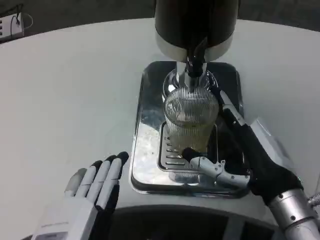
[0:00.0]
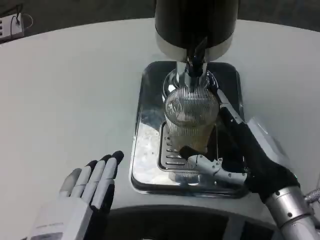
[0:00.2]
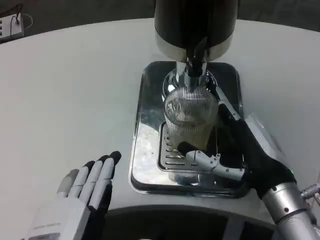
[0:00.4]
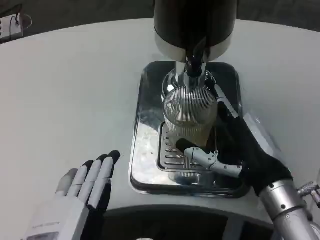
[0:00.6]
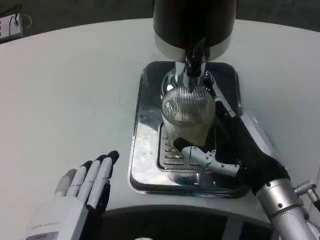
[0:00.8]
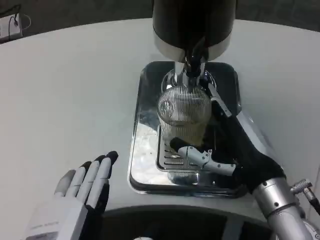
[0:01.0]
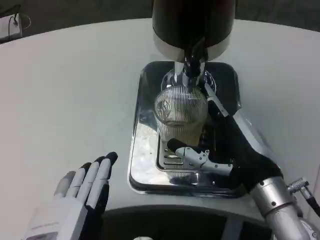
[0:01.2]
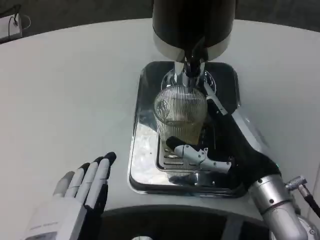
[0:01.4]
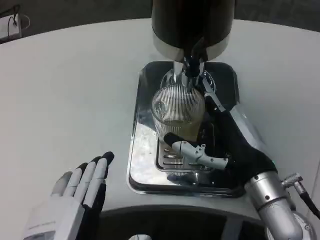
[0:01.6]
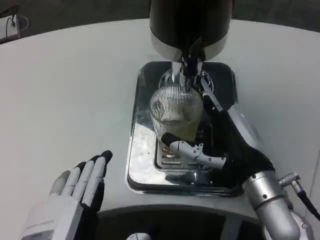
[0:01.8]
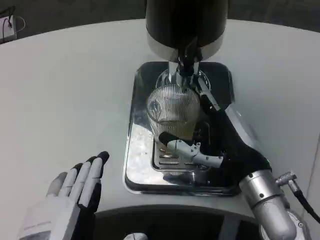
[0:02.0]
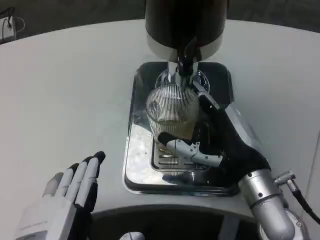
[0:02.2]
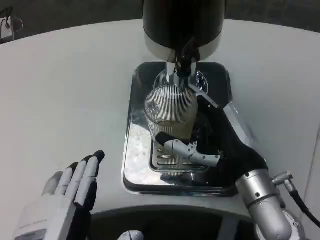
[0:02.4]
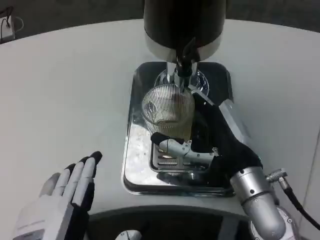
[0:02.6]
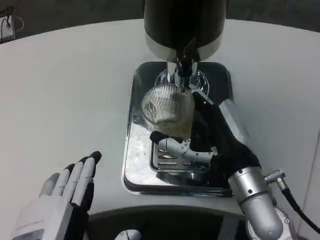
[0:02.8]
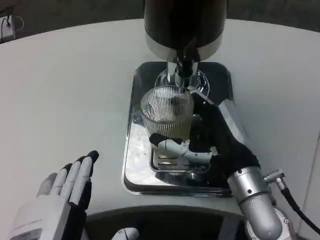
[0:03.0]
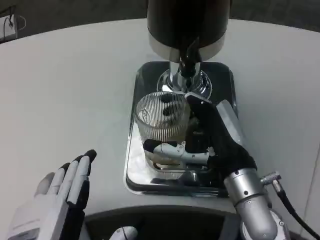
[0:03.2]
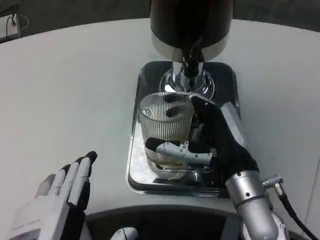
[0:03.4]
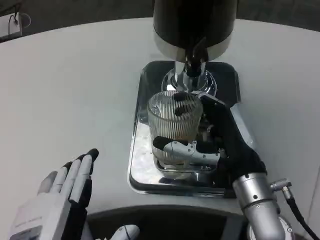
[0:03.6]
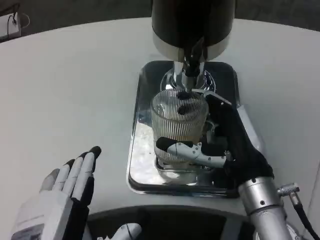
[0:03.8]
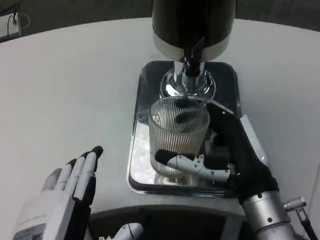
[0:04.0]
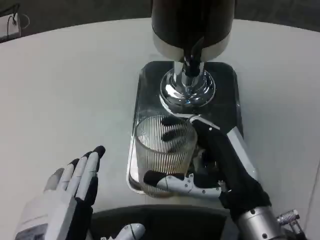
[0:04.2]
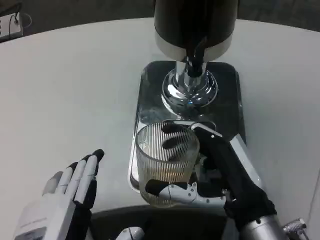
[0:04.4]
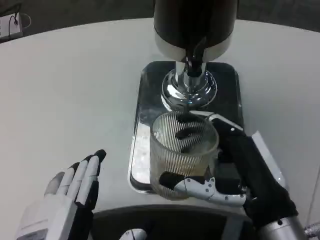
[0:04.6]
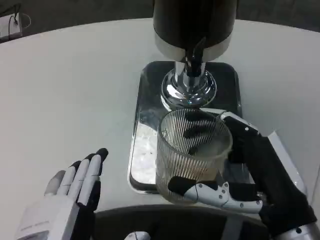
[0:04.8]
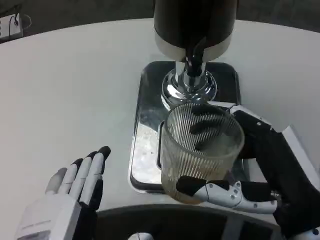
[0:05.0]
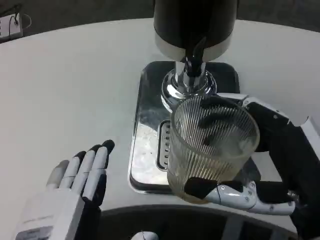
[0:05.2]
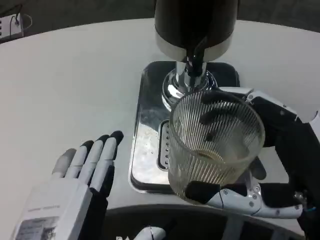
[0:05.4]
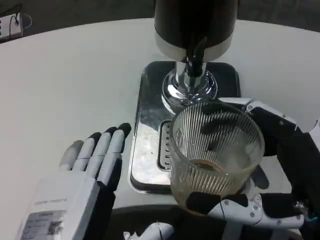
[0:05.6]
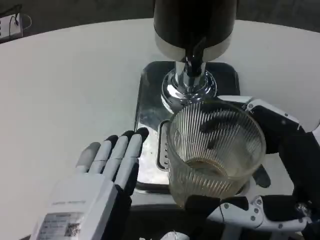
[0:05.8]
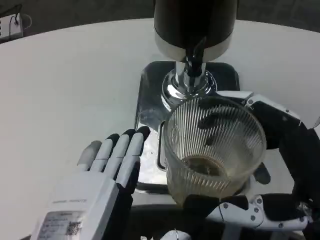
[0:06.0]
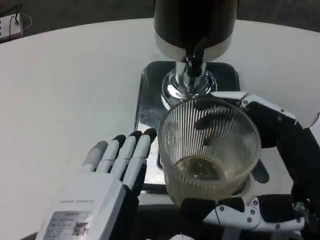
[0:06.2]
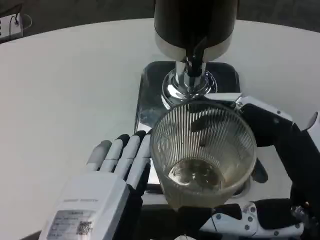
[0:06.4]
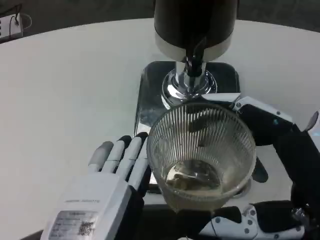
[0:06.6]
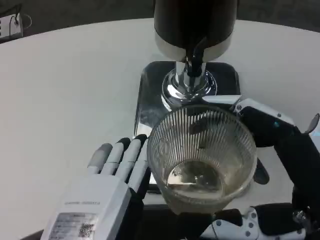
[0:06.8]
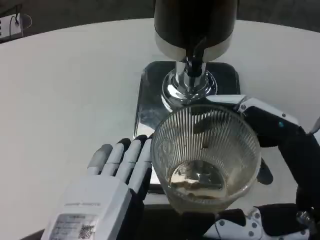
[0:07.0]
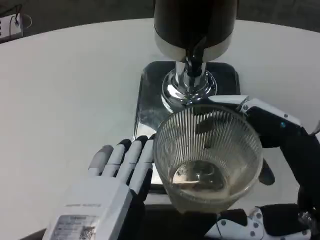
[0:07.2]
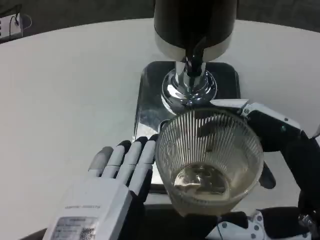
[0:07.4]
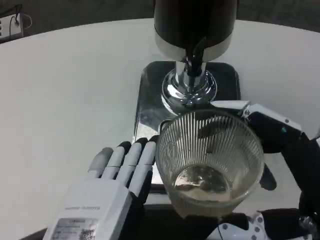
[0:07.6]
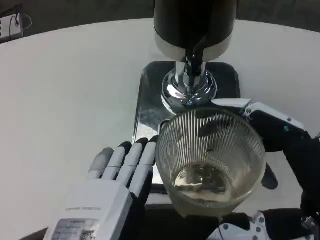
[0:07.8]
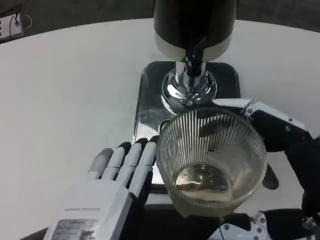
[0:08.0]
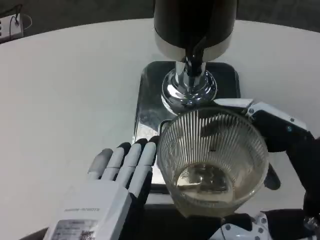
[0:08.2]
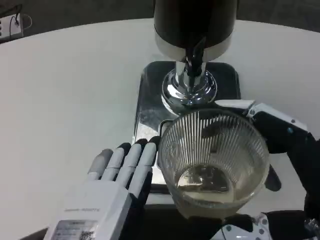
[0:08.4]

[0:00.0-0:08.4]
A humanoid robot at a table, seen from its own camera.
Task of the whole recording: Grasp the cup under the faucet to collect the drink, then remove the cup.
0:00.0 to 0:01.4: The hands make only small movements.
0:02.8 to 0:04.2: The right hand goes about 5 cm backward.
0:04.2 to 0:05.6: The right hand goes approximately 10 cm backward and to the right.
0:07.0 to 0:08.4: Both hands stay about where they are.

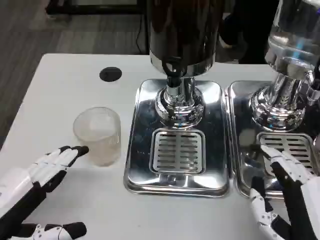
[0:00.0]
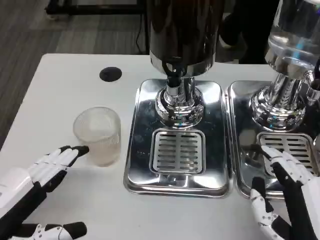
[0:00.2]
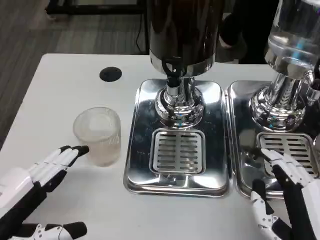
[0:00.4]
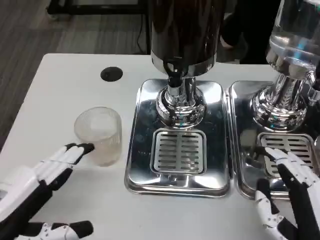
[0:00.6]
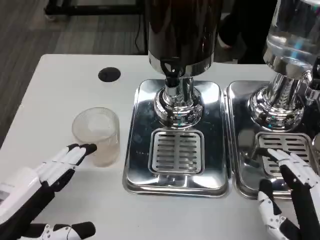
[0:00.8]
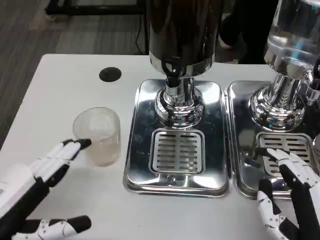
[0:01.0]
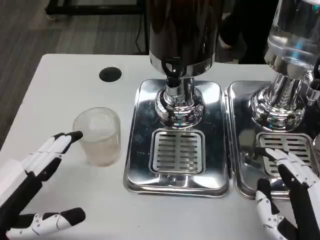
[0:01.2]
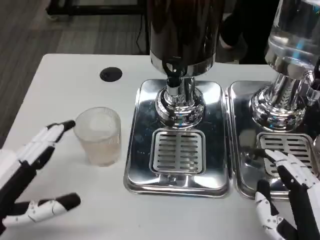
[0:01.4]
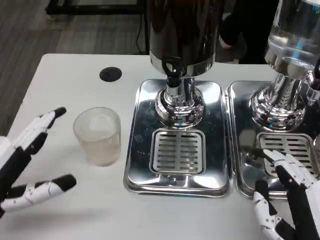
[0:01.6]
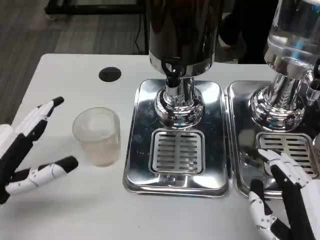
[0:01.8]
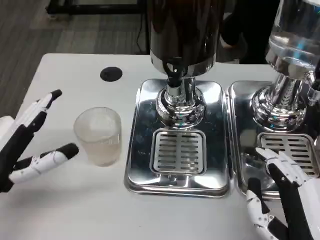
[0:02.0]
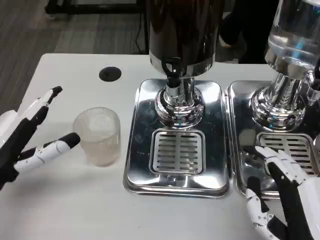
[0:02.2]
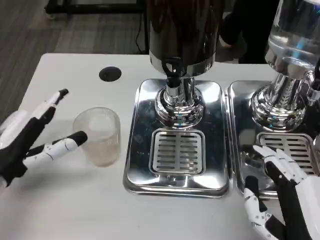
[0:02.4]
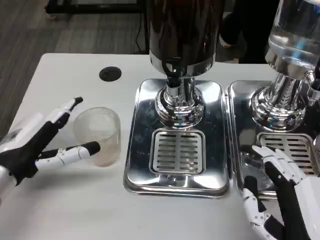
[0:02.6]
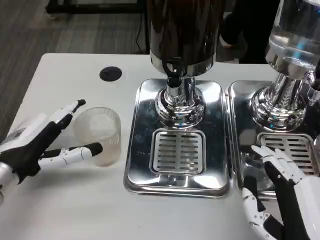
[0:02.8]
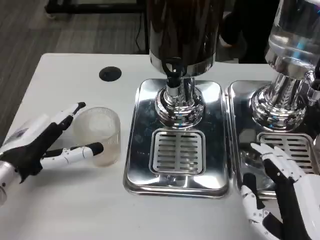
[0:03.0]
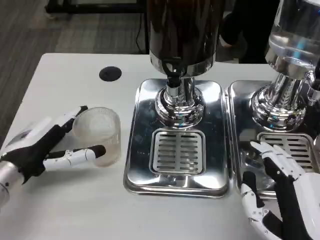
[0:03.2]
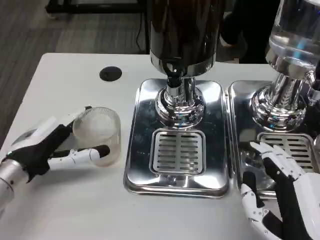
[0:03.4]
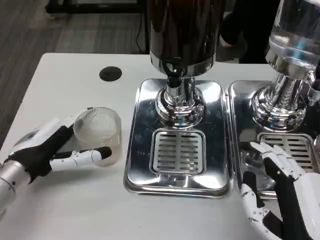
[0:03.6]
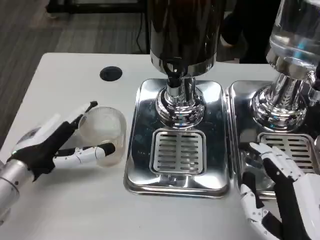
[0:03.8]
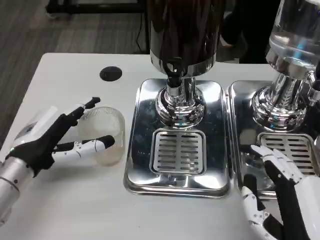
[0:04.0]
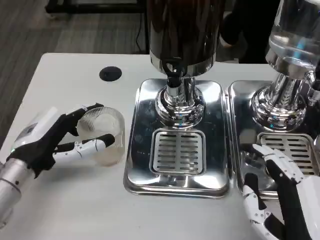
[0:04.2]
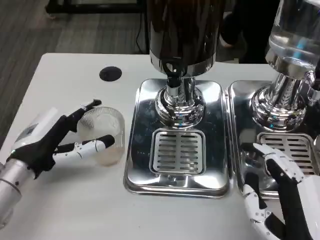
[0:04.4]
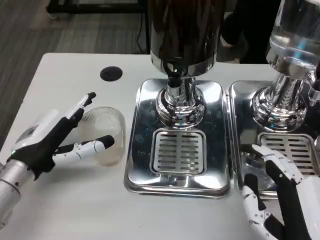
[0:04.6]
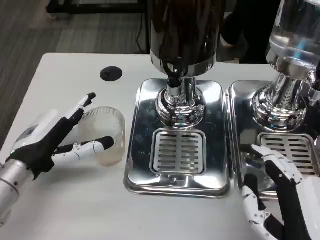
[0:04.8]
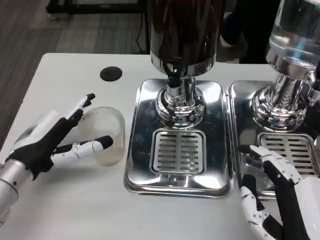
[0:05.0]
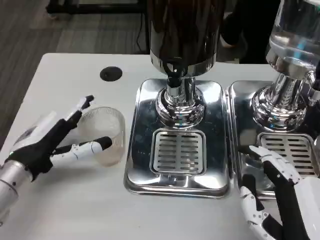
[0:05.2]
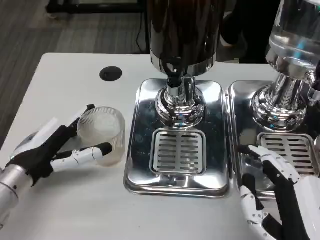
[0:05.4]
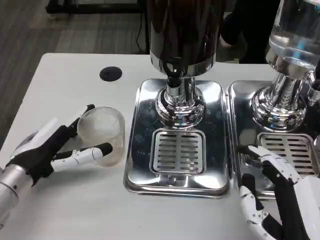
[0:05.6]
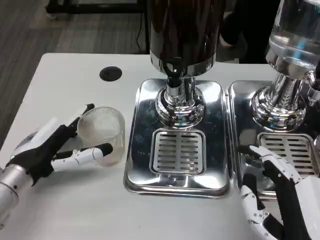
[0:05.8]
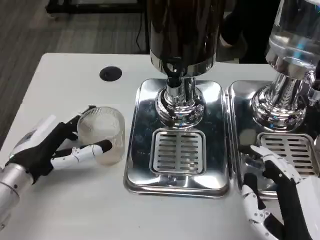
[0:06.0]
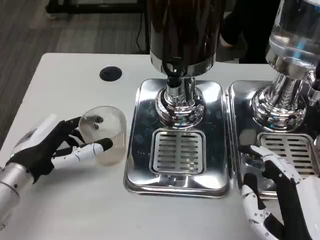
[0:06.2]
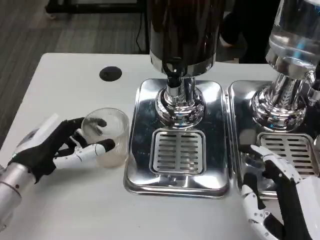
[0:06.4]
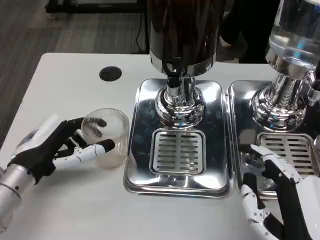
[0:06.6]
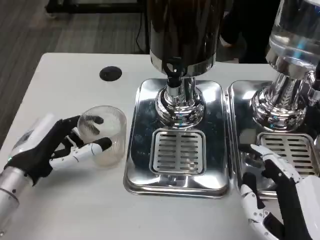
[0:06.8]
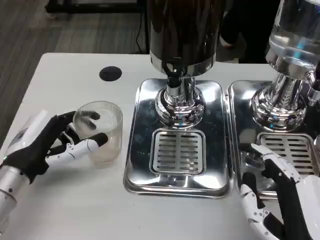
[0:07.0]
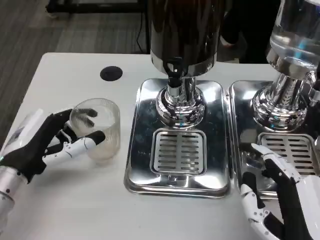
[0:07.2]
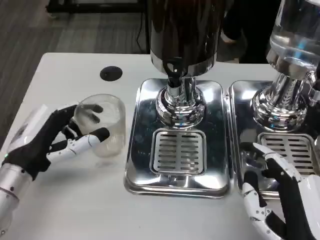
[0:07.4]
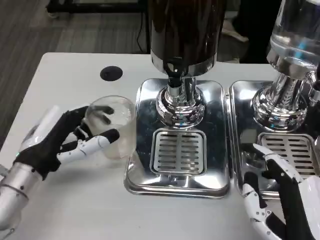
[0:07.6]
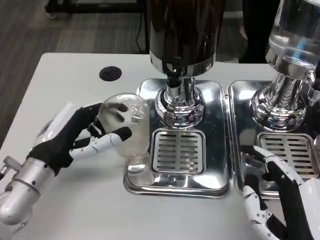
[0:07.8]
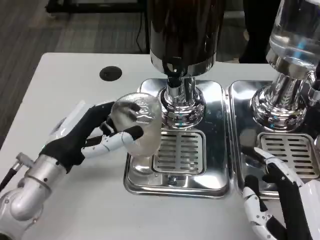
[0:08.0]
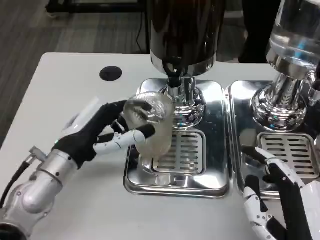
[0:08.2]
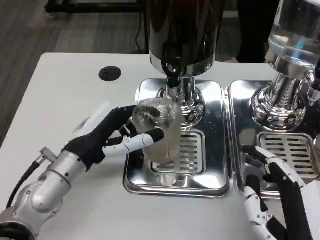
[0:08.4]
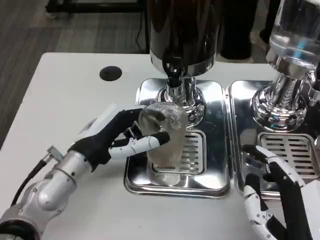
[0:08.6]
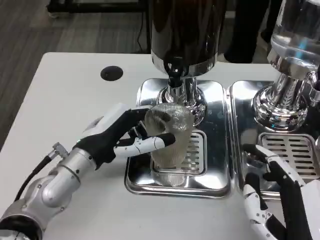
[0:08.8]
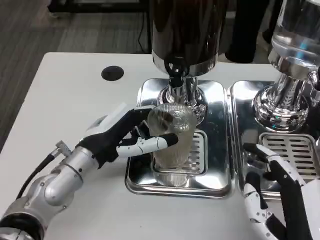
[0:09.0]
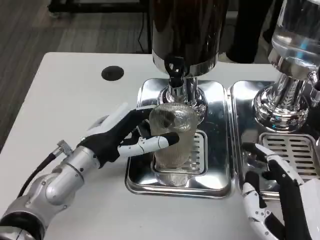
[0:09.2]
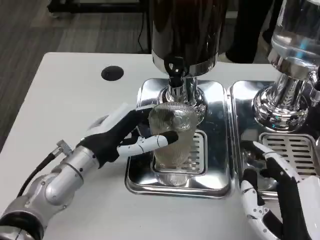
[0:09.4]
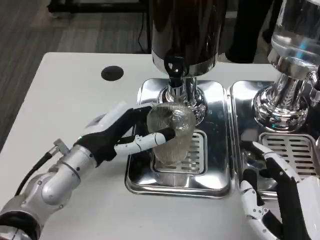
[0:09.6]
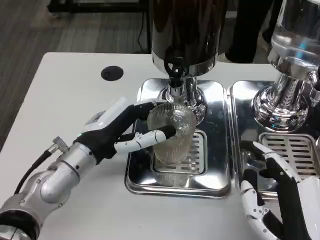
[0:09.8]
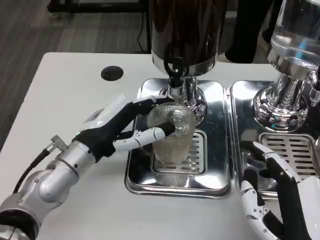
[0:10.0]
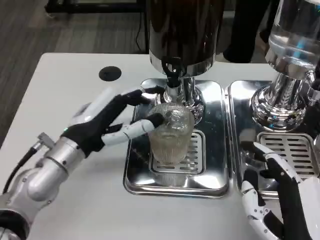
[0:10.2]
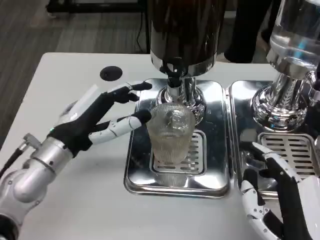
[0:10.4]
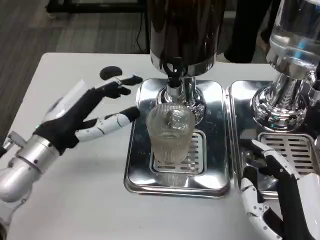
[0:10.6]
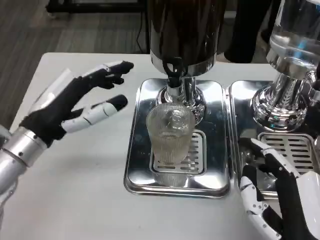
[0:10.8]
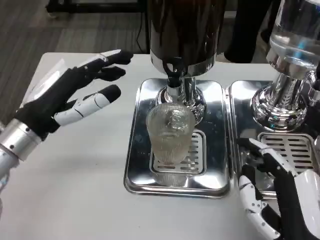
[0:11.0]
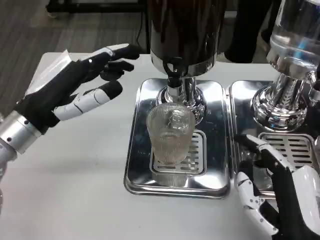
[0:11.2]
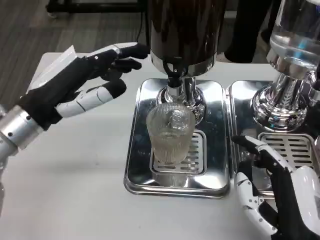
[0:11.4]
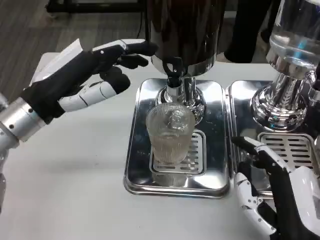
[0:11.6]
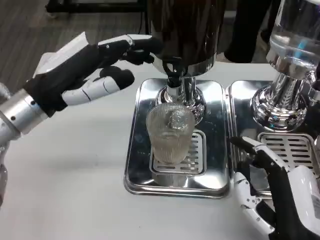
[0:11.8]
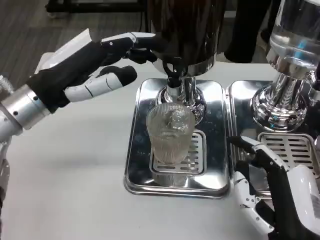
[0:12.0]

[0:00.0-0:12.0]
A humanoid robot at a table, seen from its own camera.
Task of the whole recording: Grasp the cup under the faucet to collect the drink, then remove the cup.
0:00.0 to 0:01.6: There are only small adjustments of the hands.
0:01.6 to 0:03.0: The left hand is displaced forward by roughly 10 cm.
0:03.0 to 0:07.6: The hands move only a little.
0:07.6 to 0:09.0: The left hand shifts some 5 cm to the right.
0:10.4 to 0:12.0: The left hand shifts roughly 10 cm upward.

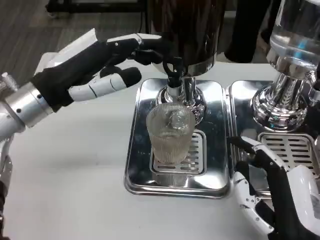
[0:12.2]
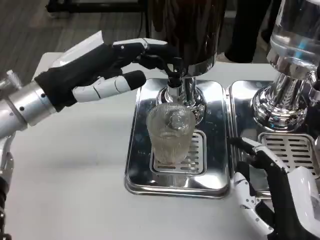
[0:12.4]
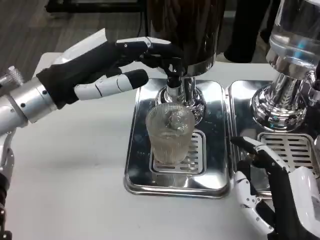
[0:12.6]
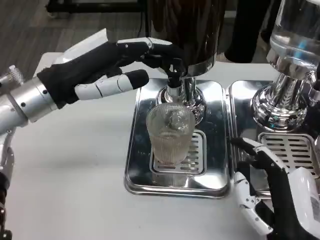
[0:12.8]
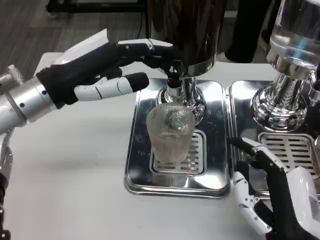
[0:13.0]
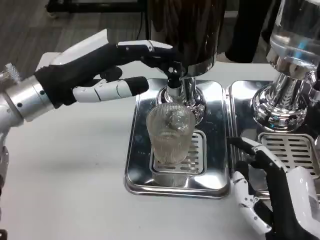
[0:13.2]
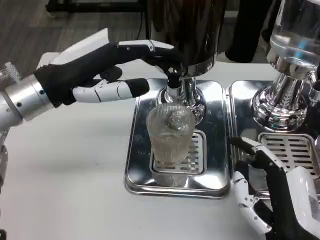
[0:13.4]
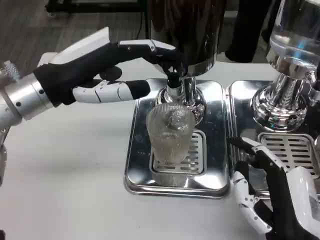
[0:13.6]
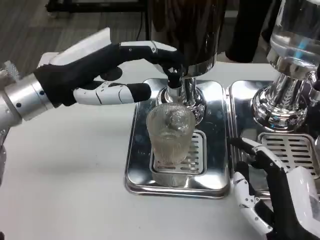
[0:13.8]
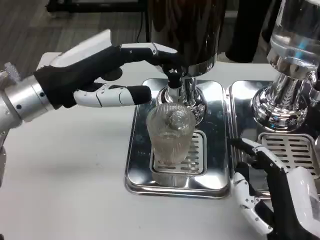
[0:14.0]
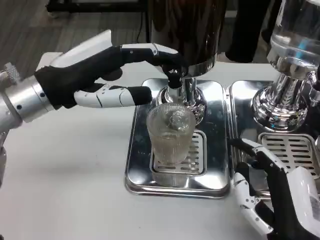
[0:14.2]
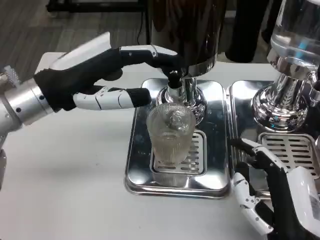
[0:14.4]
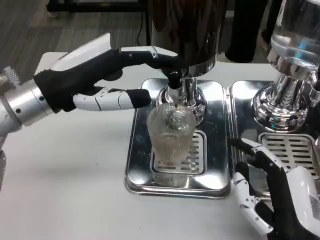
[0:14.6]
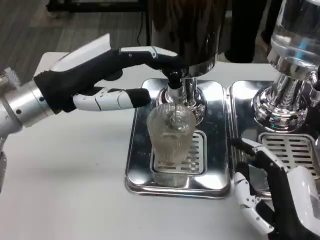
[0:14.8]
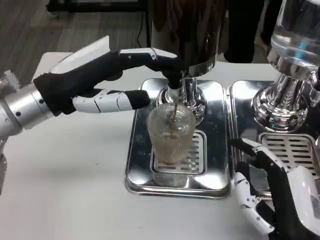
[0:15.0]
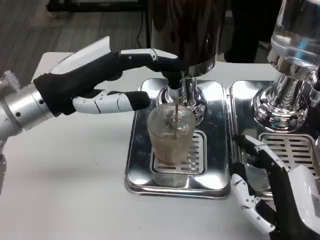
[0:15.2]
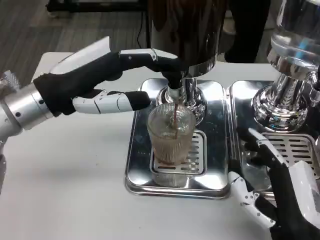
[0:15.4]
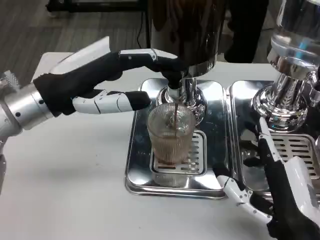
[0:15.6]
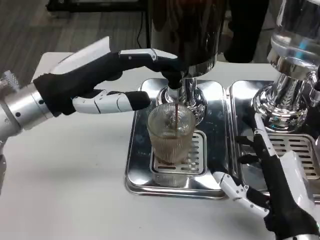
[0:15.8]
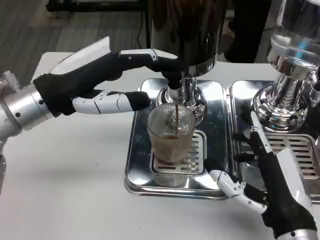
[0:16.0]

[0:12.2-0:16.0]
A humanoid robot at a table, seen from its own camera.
Task of the whole recording: Grasp the cup under the faucet to collect the drink, then remove the cup.
0:12.2 to 0:13.4: The hands make only small movements.
0:13.4 to 0:14.8: The two hands keep their place.
0:14.8 to 0:16.0: The hands stay close to where they were, moving slightly.
